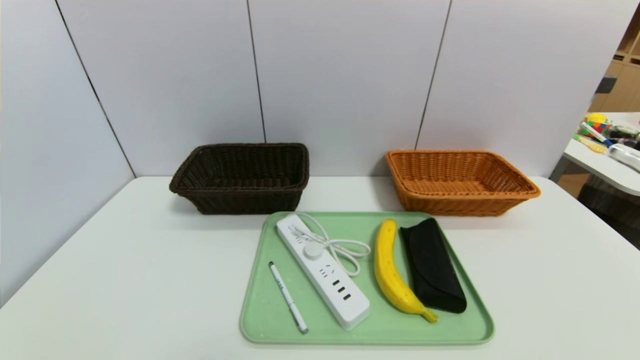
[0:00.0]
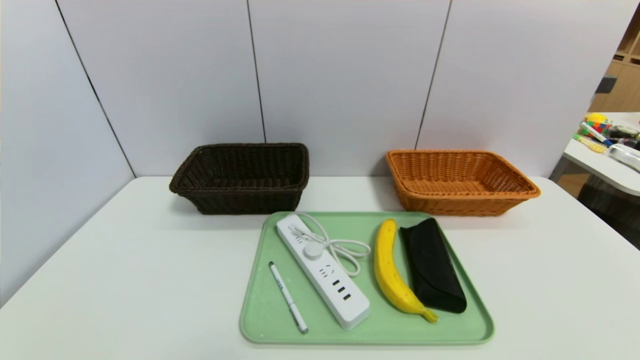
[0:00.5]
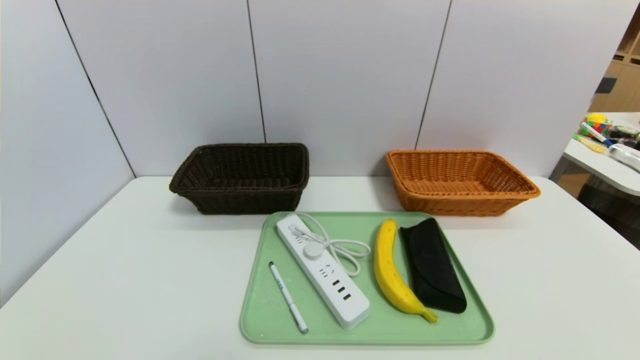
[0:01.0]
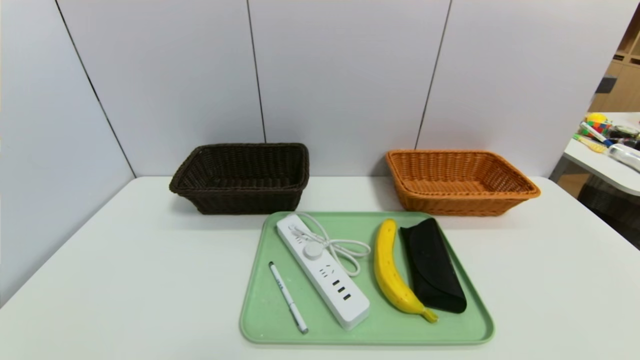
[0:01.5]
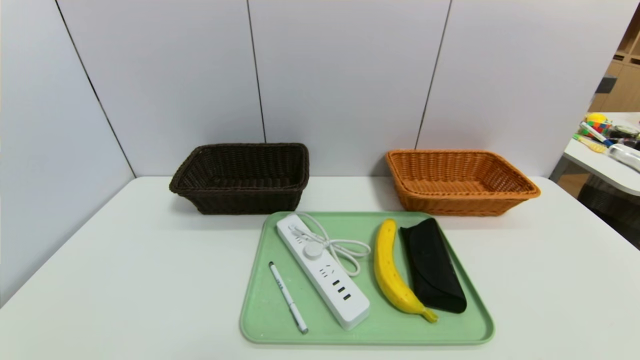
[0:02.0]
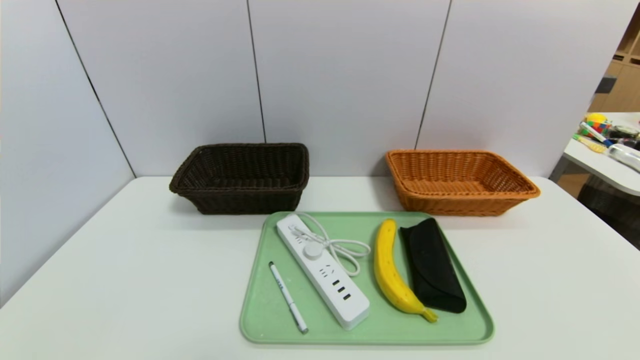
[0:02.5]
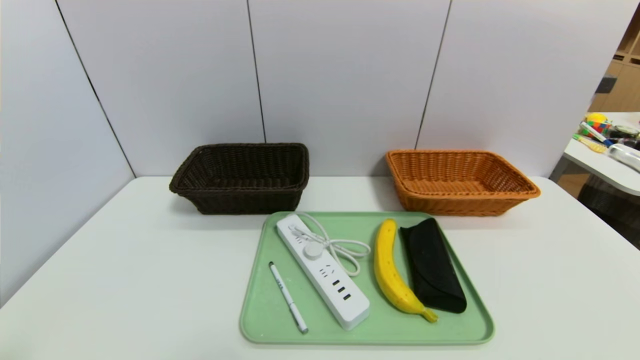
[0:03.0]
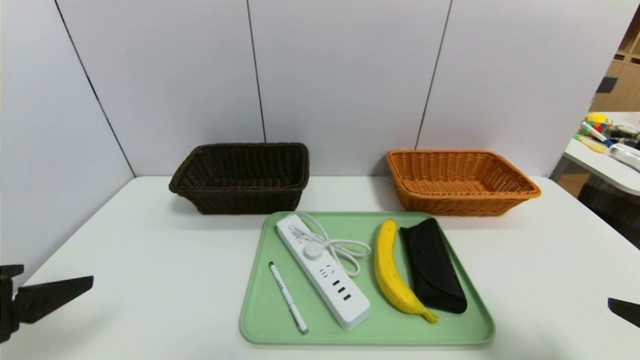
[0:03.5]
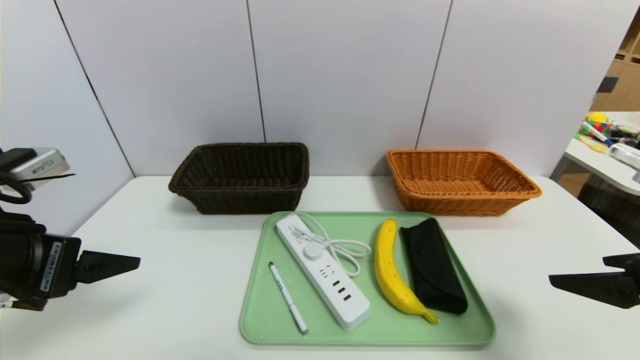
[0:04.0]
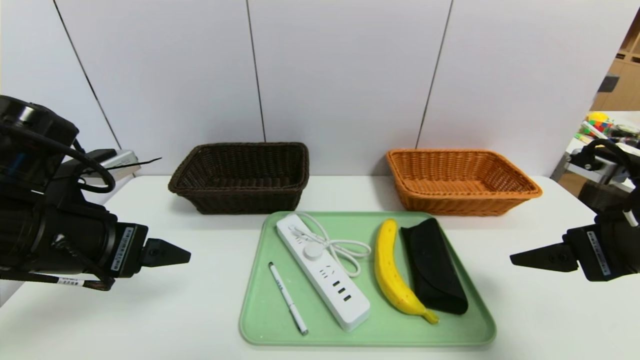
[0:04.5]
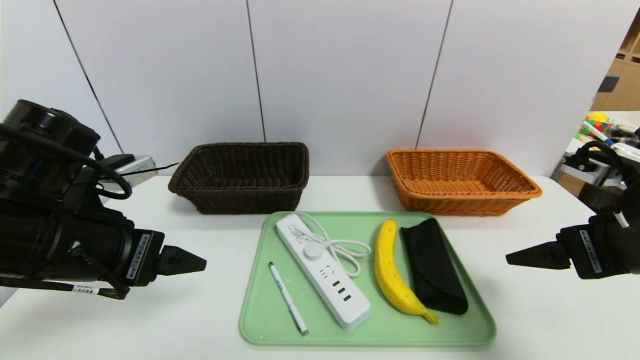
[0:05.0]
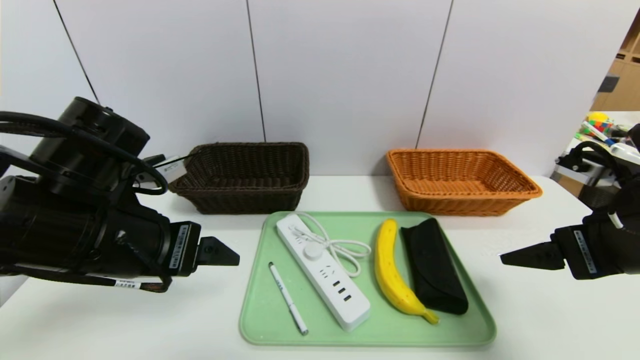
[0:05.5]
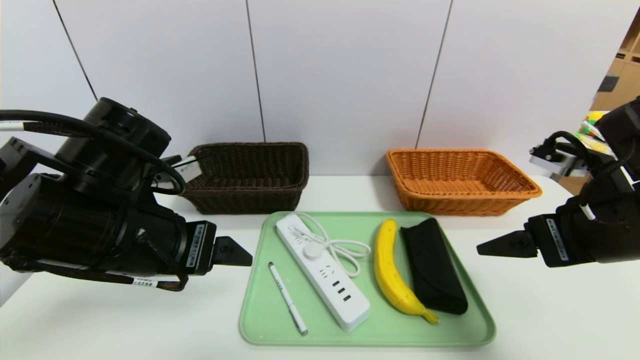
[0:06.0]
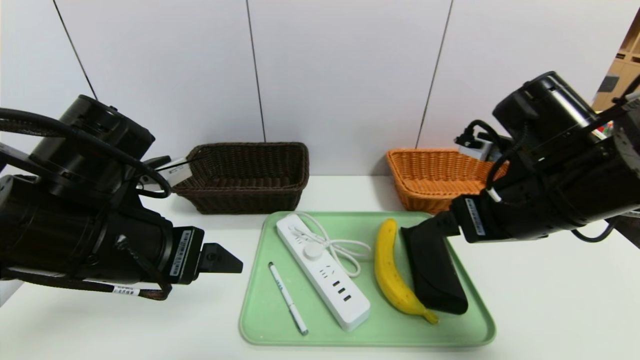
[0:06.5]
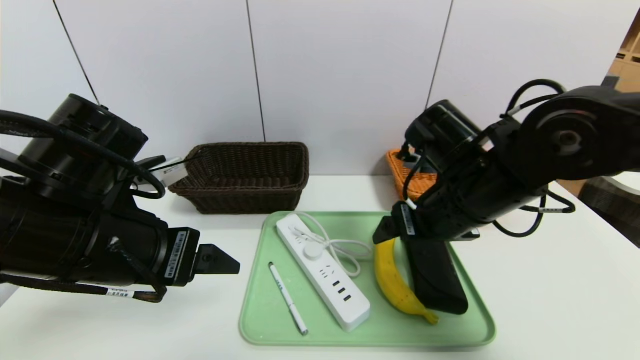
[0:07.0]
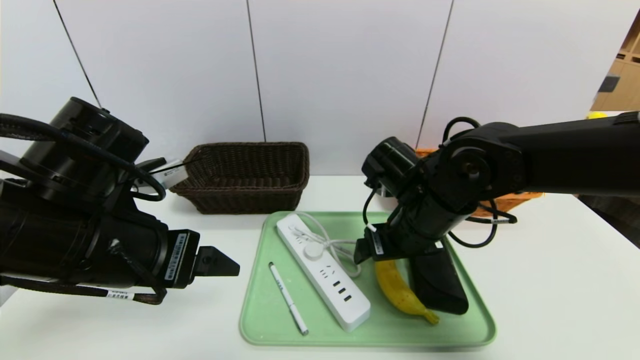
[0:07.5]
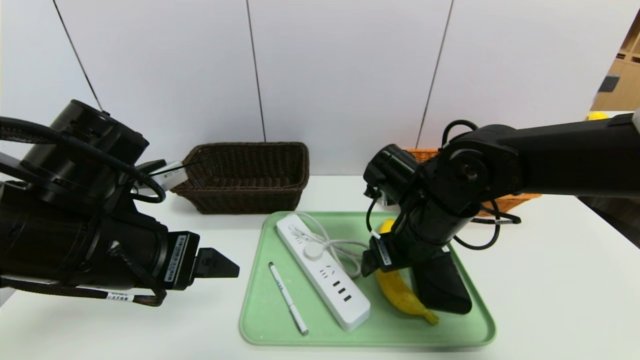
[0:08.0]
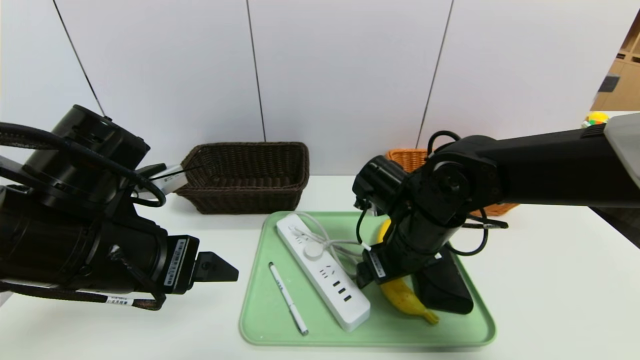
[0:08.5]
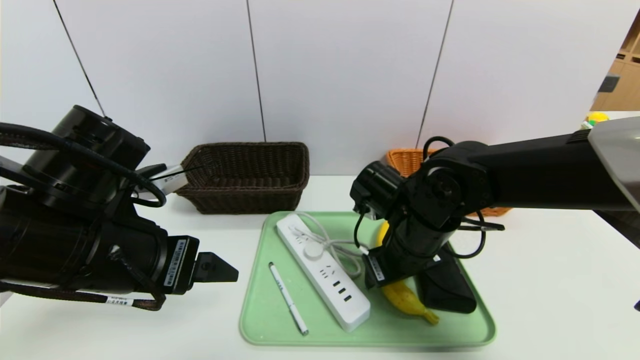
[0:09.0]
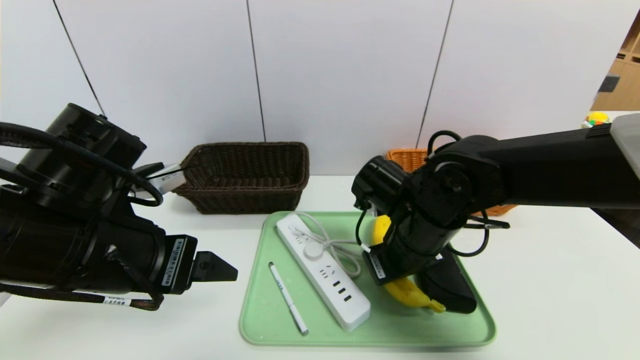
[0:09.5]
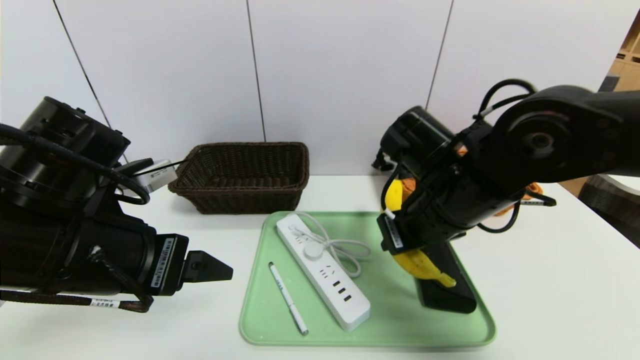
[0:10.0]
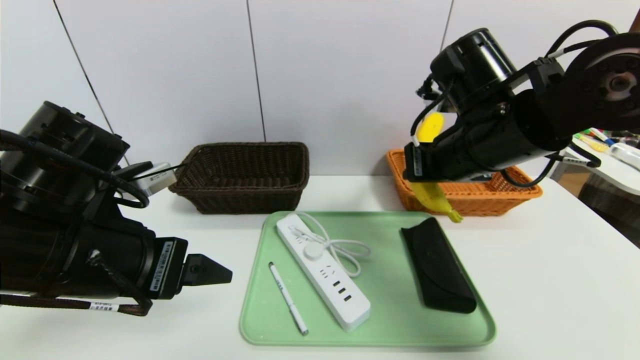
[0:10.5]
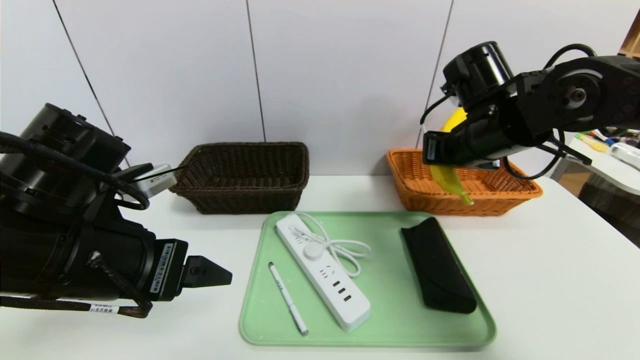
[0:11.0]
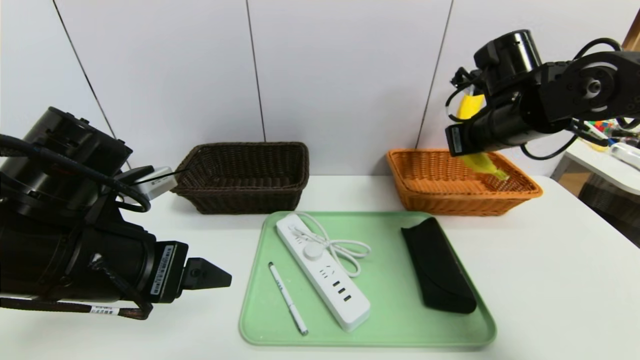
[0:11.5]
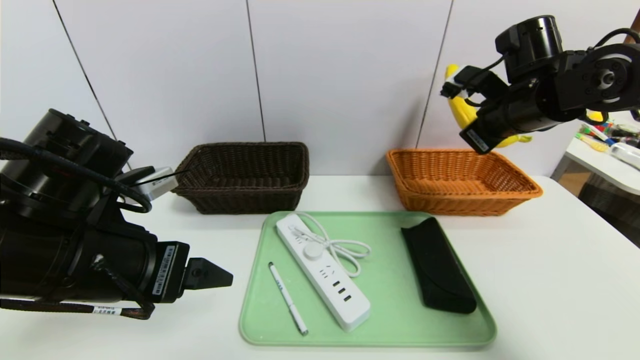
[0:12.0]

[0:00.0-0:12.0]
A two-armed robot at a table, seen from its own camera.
Task of the whole recording: place the food in the right basket with the right gripper, and place the non food items in the left basket with the left gripper.
0:00.0 to 0:02.0: Neither gripper changes place.
0:02.0 to 0:04.0: Both grippers move upward and forward, about 25 cm.
0:04.0 to 0:06.0: The left gripper goes roughly 10 cm to the right. The right gripper goes approximately 5 cm forward.
0:06.0 to 0:08.0: The right gripper shifts some 20 cm to the left, forward and downward.
0:08.0 to 0:10.0: The right gripper travels upward by approximately 5 cm, and closes up.
0:10.0 to 0:12.0: The right gripper travels to the right, forward and upward by roughly 20 cm.

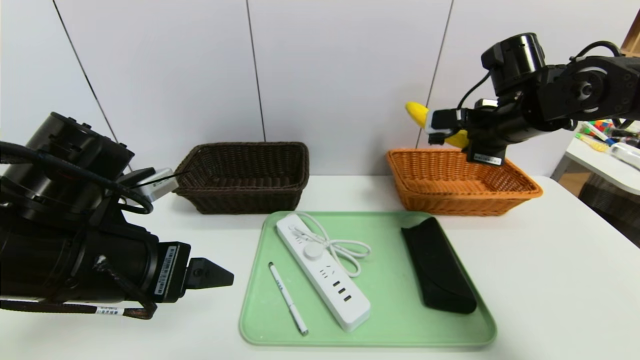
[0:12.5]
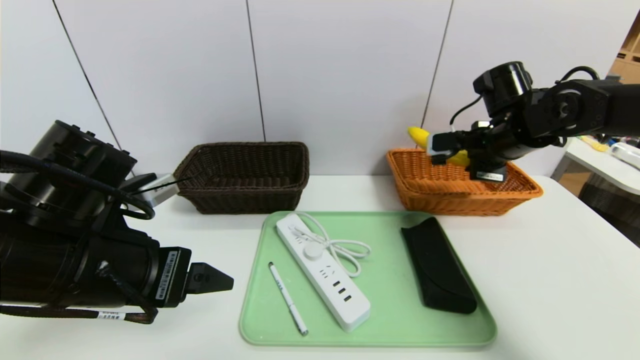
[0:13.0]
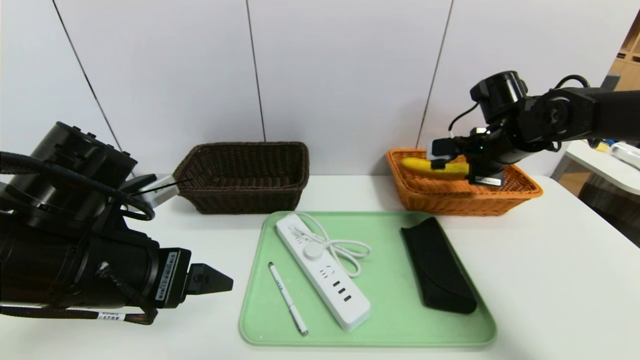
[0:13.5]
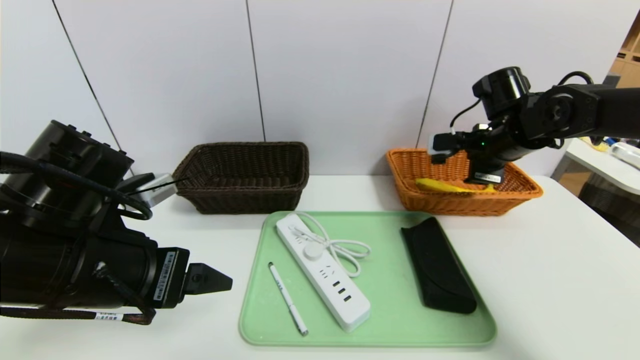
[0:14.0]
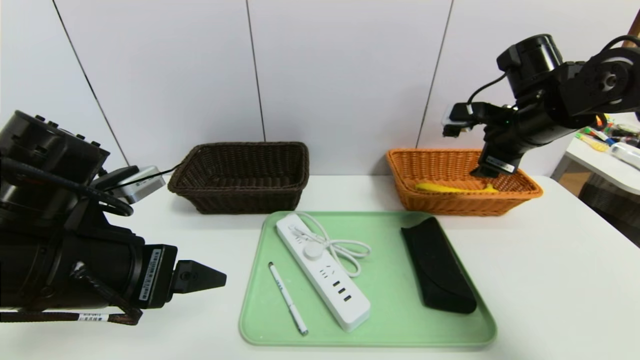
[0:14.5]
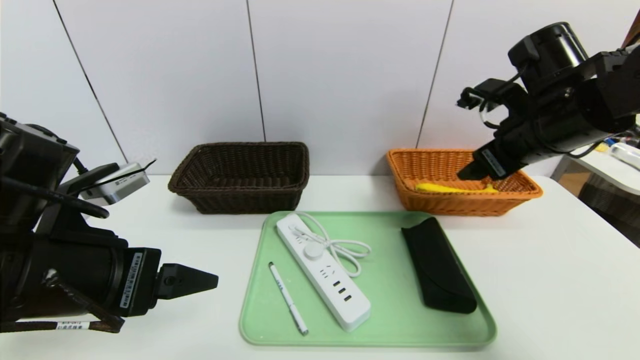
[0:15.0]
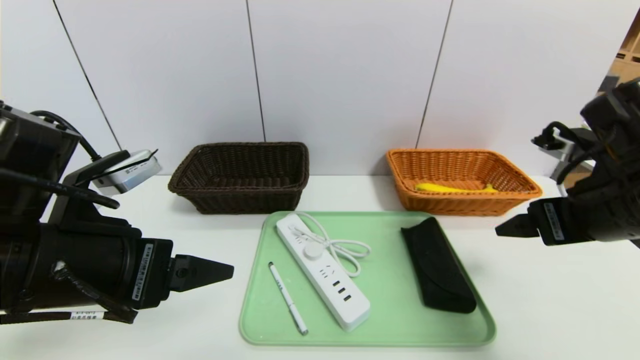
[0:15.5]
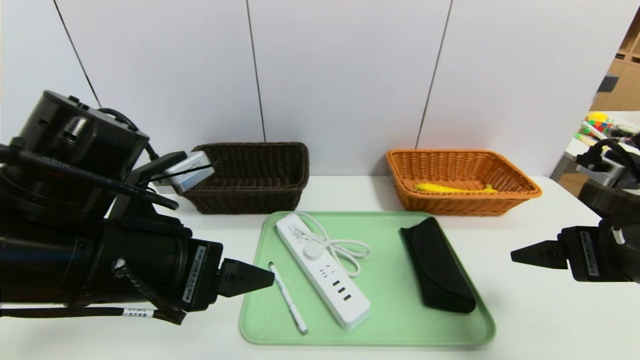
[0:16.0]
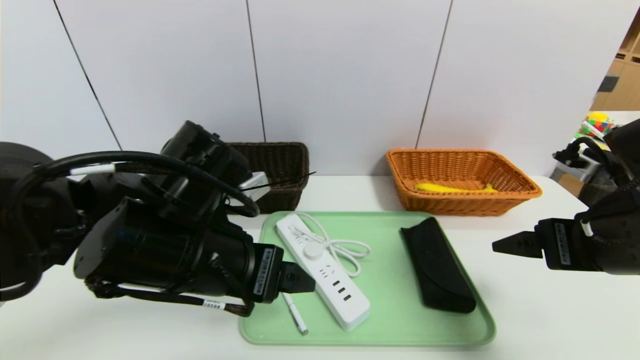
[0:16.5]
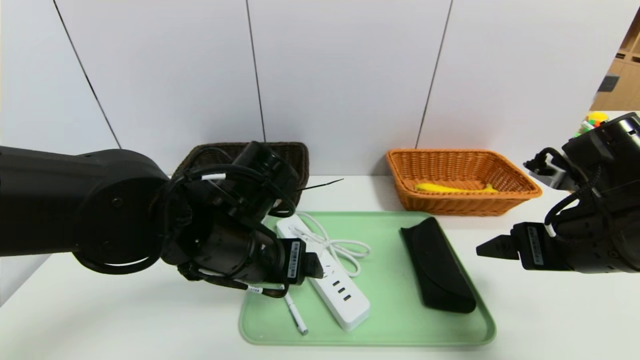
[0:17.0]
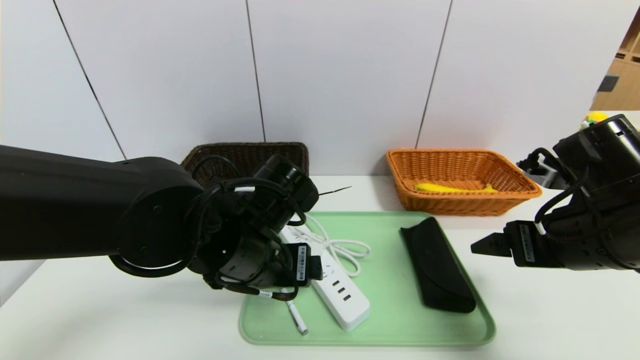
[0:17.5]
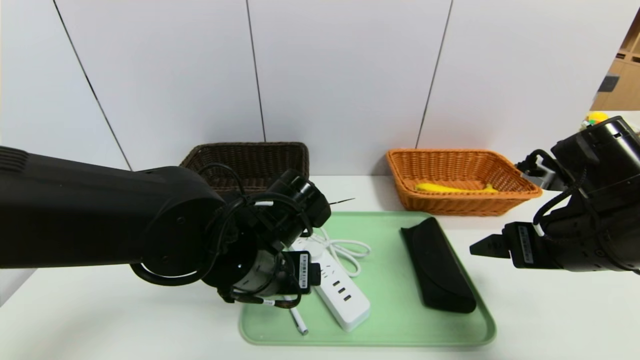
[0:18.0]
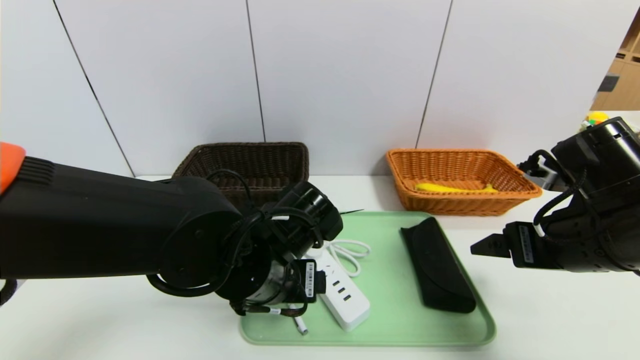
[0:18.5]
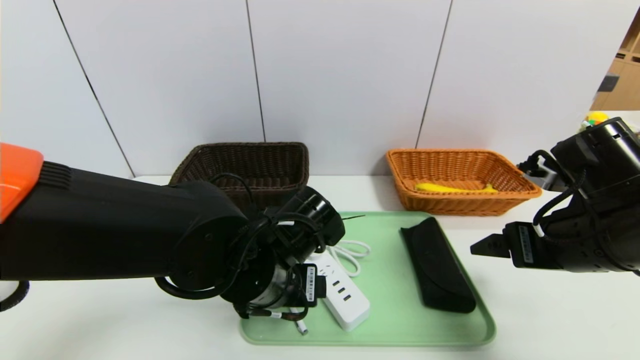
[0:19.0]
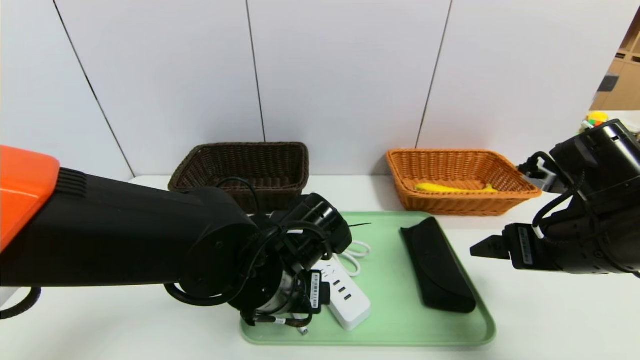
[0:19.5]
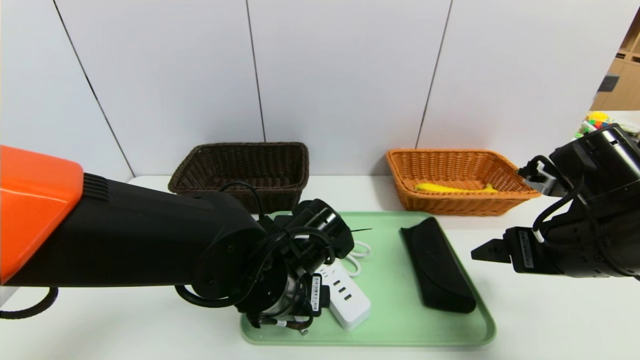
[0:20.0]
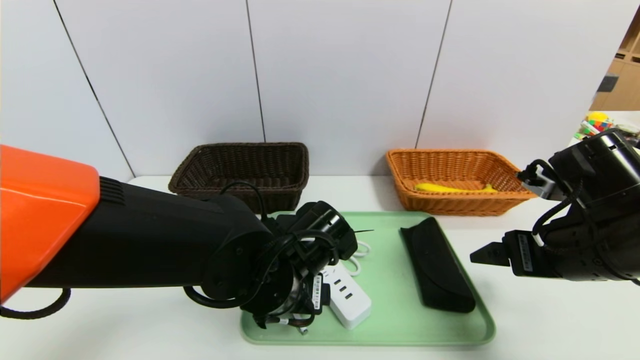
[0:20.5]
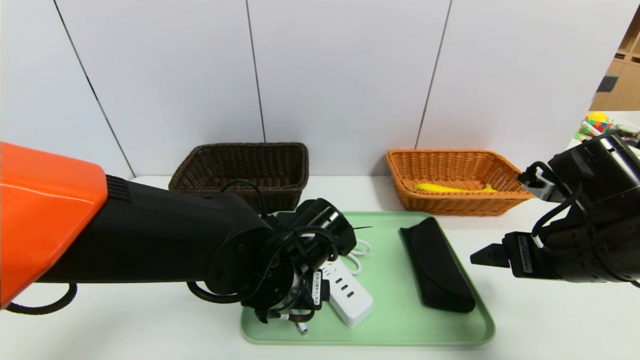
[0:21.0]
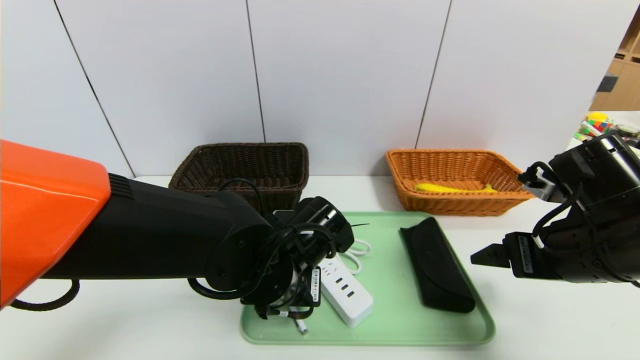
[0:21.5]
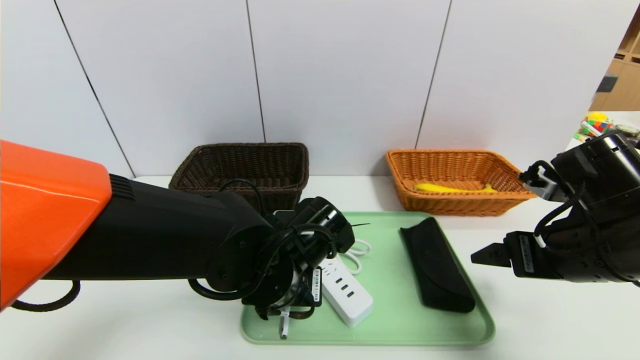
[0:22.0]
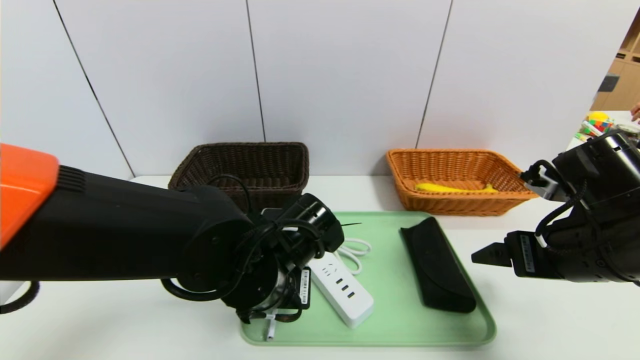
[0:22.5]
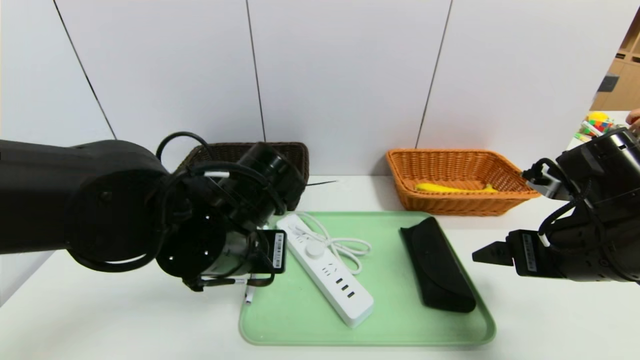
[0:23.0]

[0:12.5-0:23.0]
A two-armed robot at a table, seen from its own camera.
Task of the whole recording: place the food in the right basket with the right gripper, and place the non food items in the left basket with the left gripper.
Step, 0:12.5 to 0:14.5: Grasp the banana and put it in the right basket.
0:12.5 to 0:14.5: The right gripper opens up.
0:14.5 to 0:16.5: The right gripper goes roughly 20 cm backward. The left gripper shifts some 10 cm to the right.
0:16.5 to 0:19.0: The left gripper goes roughly 10 cm downward and to the right.
0:19.0 to 0:21.0: The grippers make only small movements.
0:21.0 to 0:23.0: The left gripper heads upward, covering approximately 5 cm, and closes its fingers.
